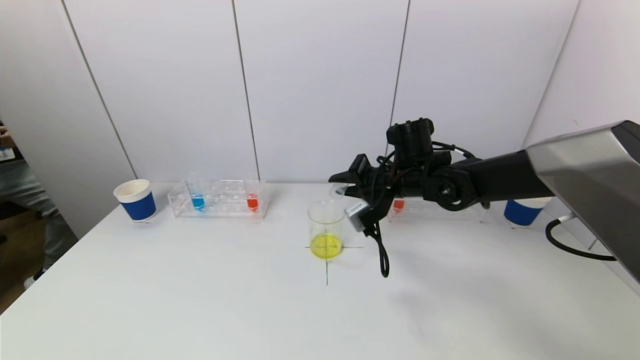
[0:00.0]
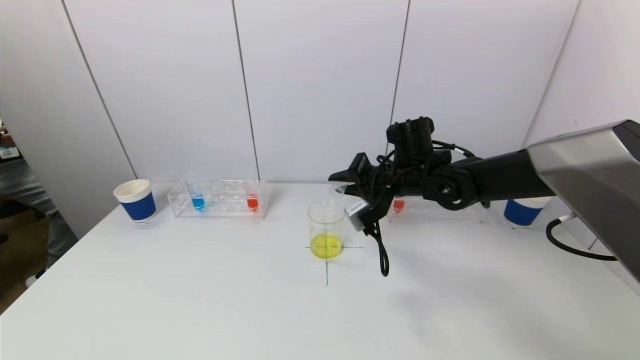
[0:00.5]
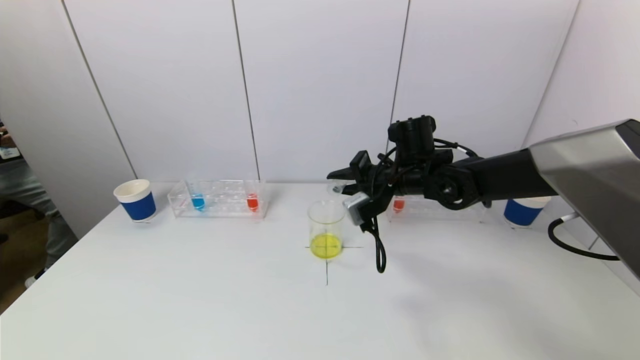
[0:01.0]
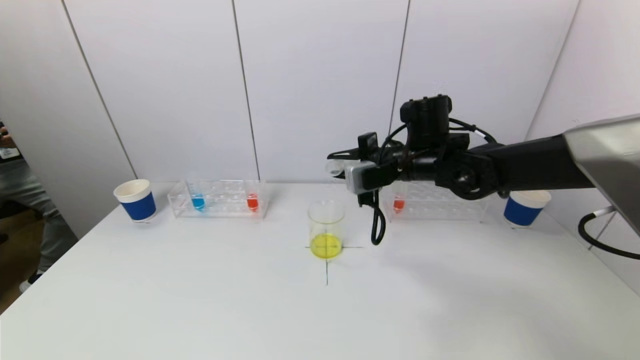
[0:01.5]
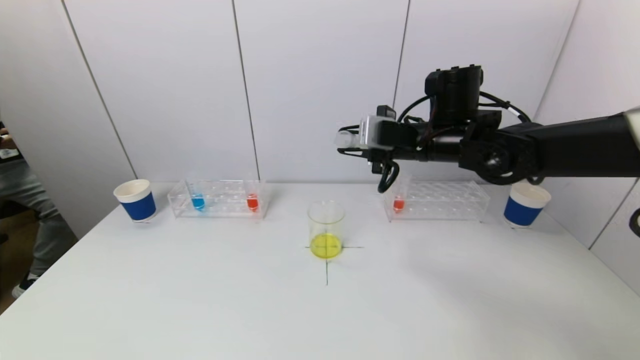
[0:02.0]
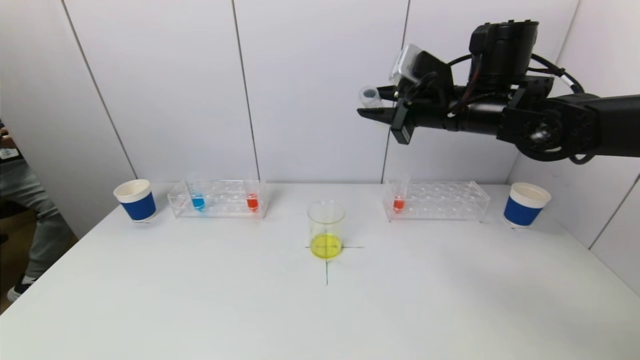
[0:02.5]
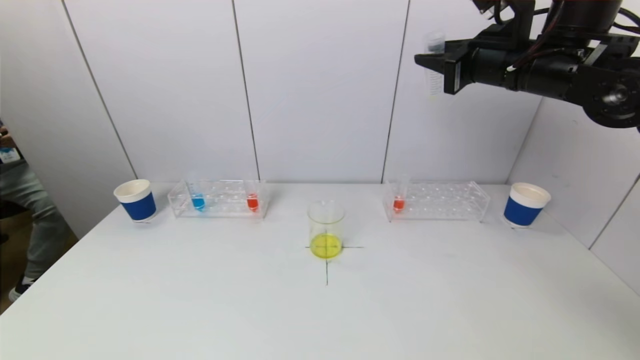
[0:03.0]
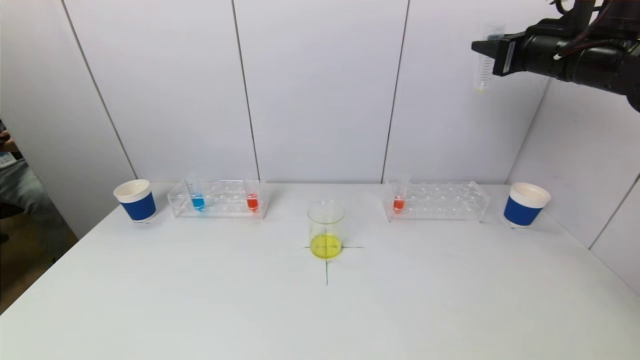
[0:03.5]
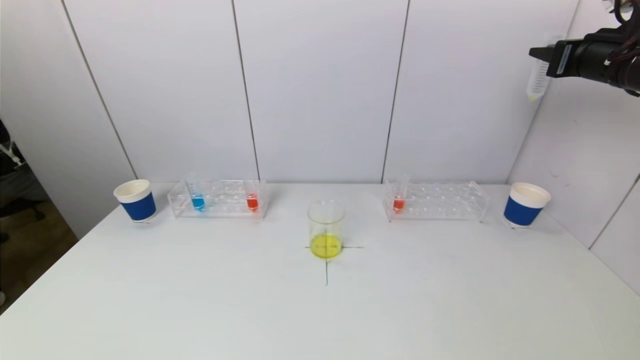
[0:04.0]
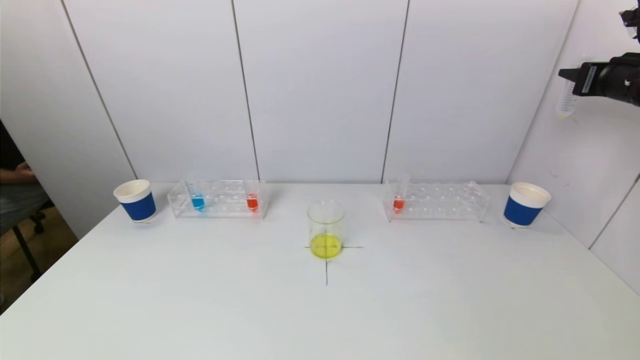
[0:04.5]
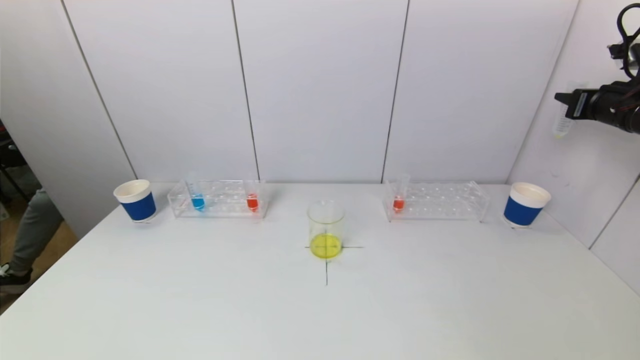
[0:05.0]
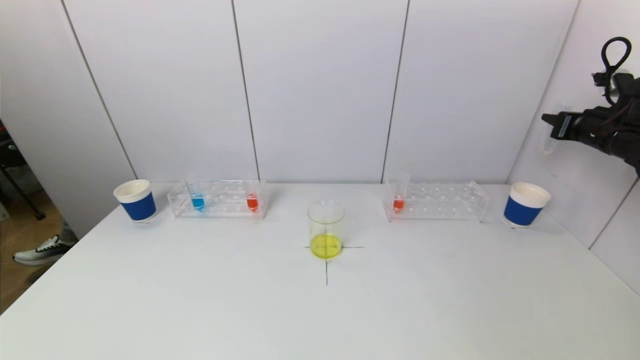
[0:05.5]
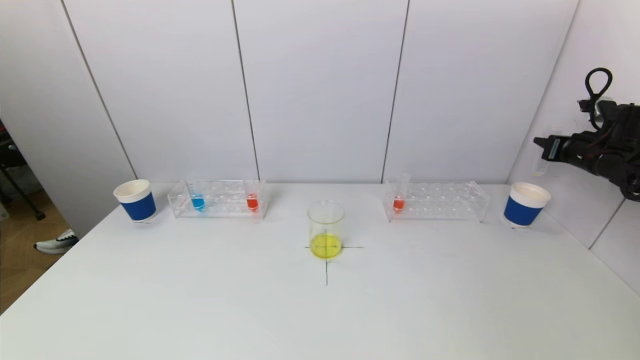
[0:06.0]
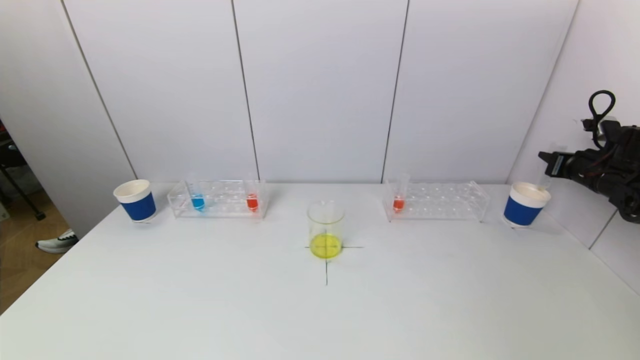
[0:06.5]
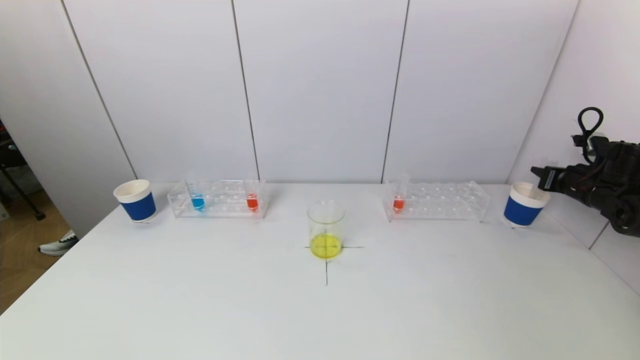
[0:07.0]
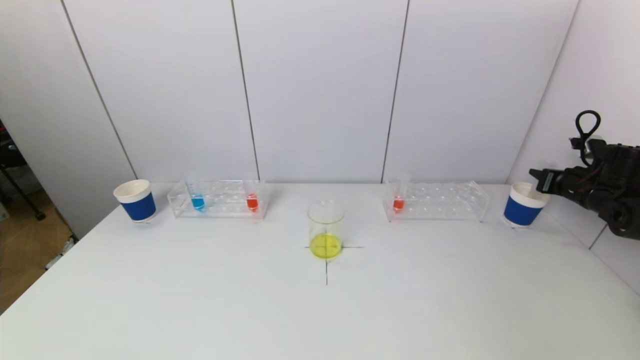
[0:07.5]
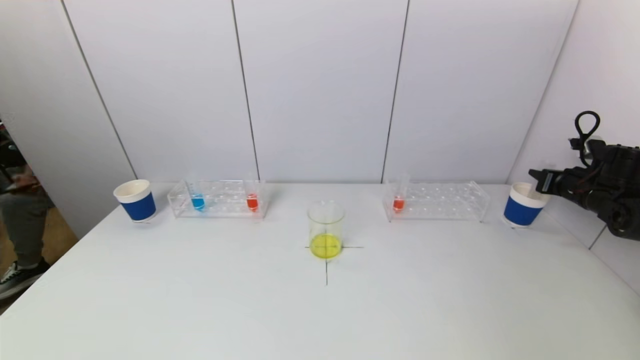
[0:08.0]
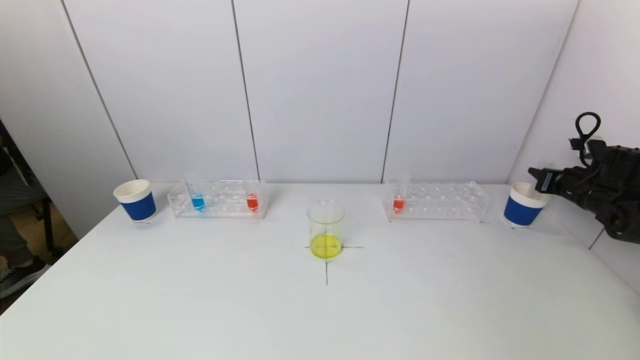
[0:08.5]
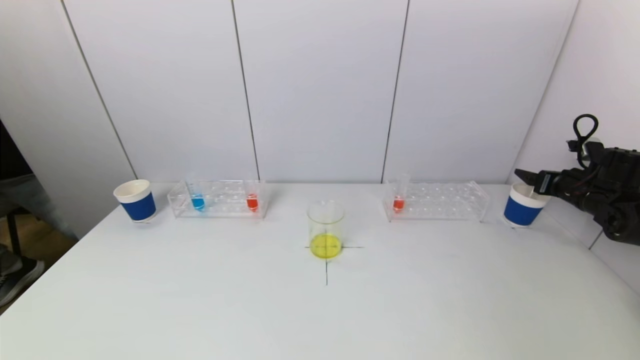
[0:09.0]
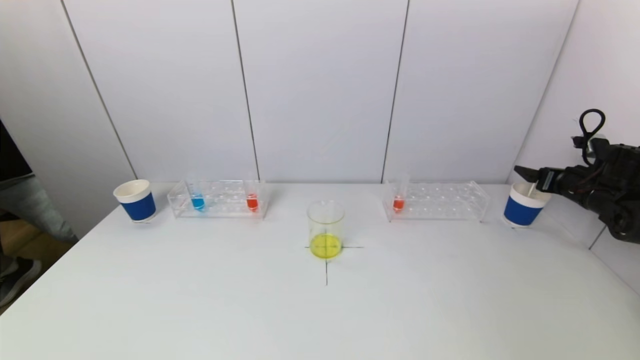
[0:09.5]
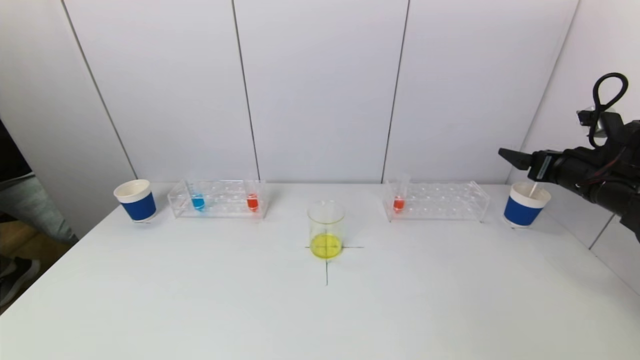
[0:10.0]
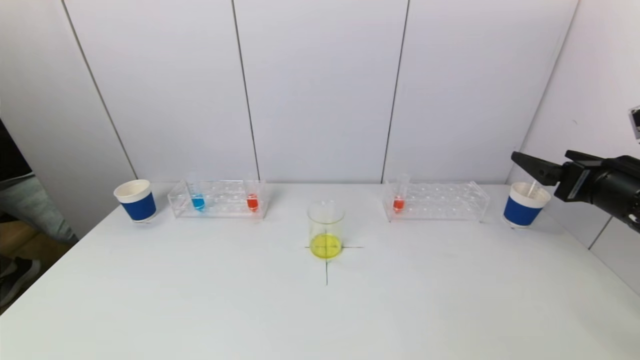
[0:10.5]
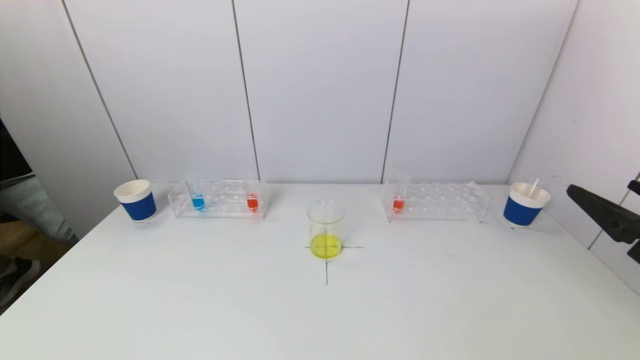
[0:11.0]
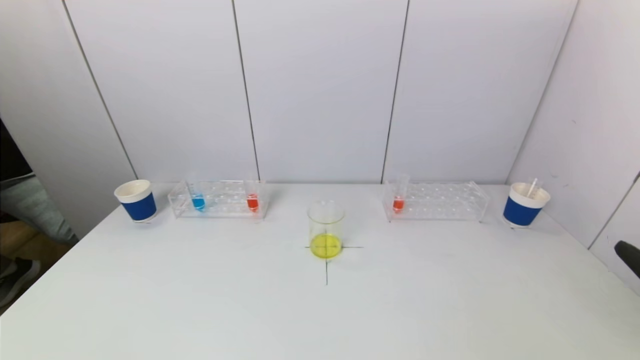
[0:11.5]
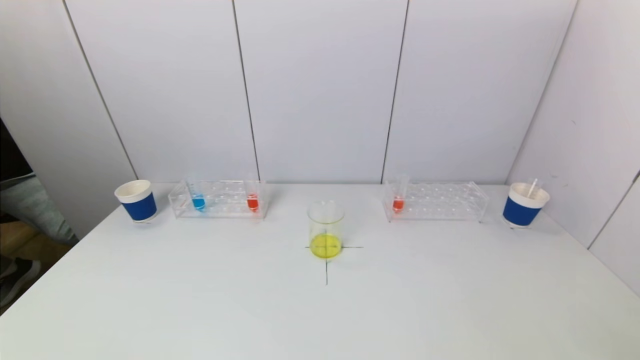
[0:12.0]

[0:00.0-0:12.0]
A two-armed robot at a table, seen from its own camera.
Task of the whole recording: pick up a test tube with pigment on left test tube rack and a test tube with pigment on right test tube rack by grippers and pour them into the beaker.
Step, 0:00.5 to 0:09.0: Place the test tube into the paper cup with the right gripper.
0:00.0 to 0:02.0: The right gripper travels upward by roughly 10 cm.
0:02.0 to 0:04.0: The right gripper travels to the right and upward by approximately 25 cm.
0:04.0 to 0:06.0: The right gripper moves downward and to the right, about 20 cm.
0:06.0 to 0:08.0: The right gripper travels downward by roughly 5 cm.
0:08.0 to 0:10.0: The right gripper moves to the left, backward and upward, some 15 cm, and opens.
0:10.0 to 0:12.0: The right gripper moves backward, approximately 35 cm.

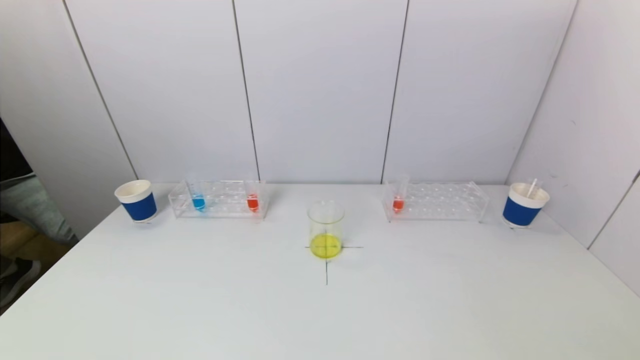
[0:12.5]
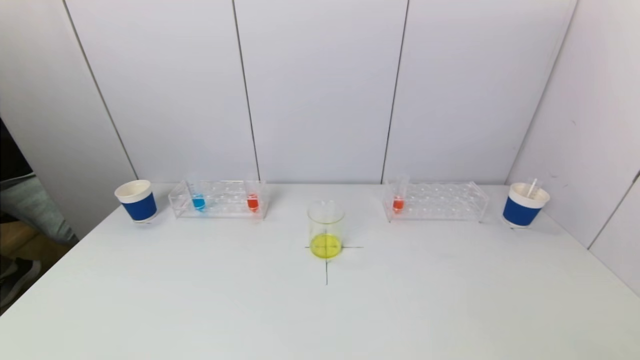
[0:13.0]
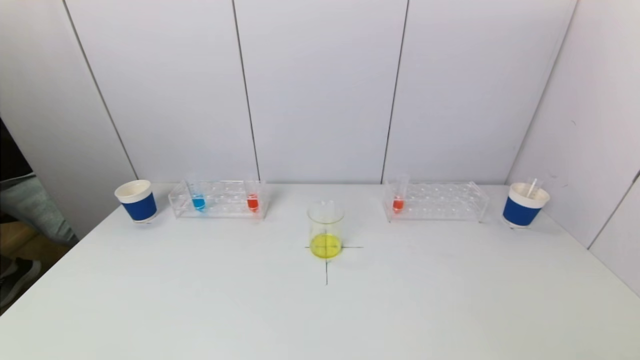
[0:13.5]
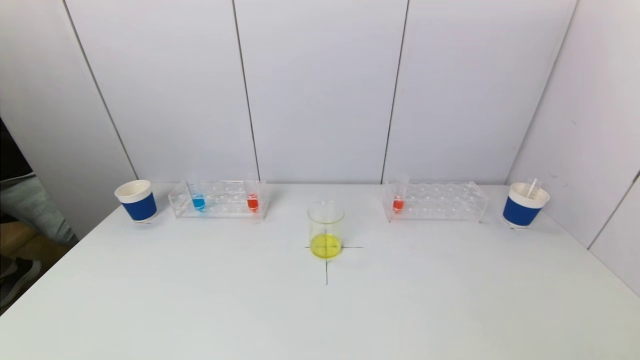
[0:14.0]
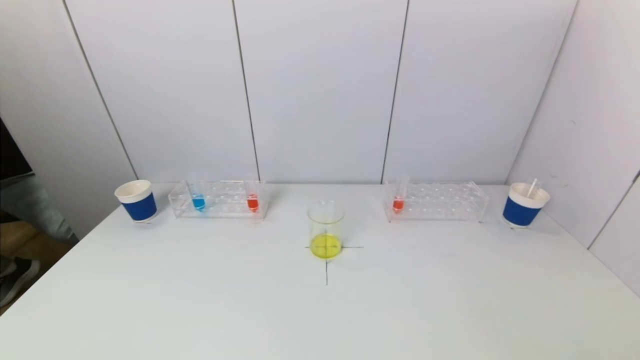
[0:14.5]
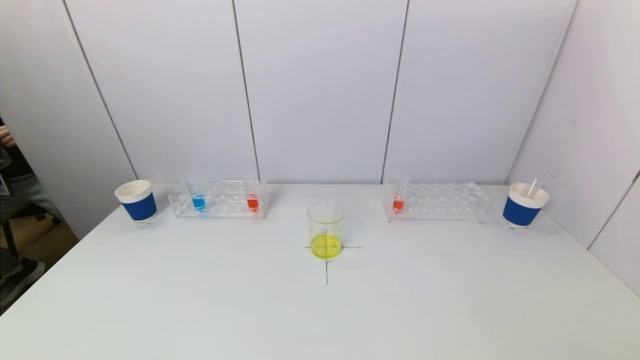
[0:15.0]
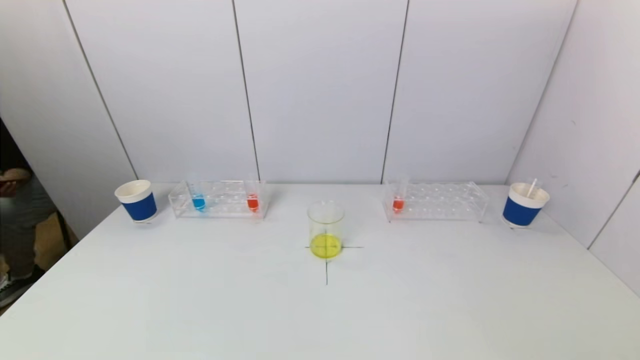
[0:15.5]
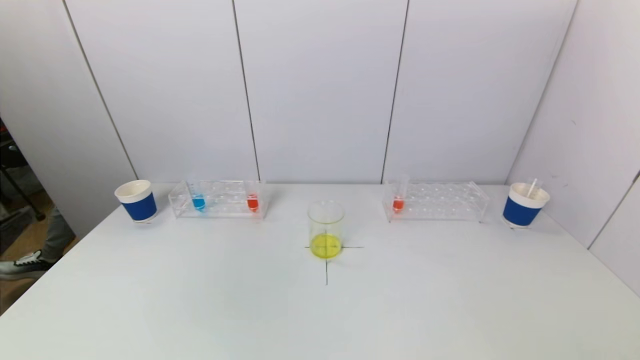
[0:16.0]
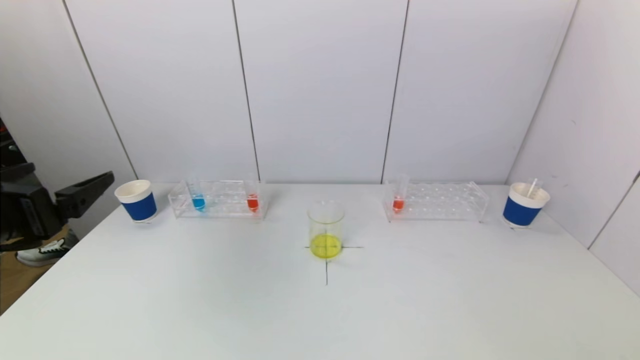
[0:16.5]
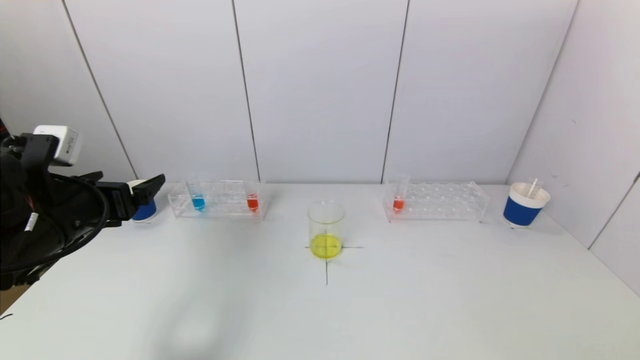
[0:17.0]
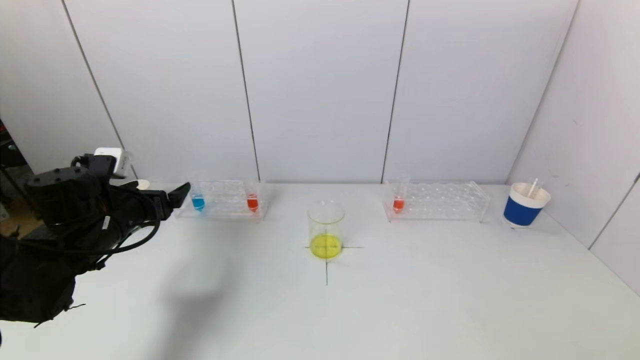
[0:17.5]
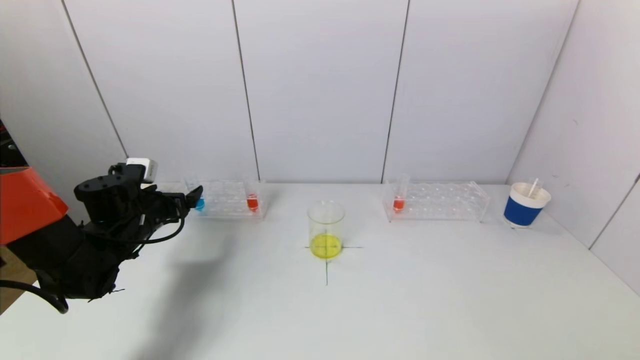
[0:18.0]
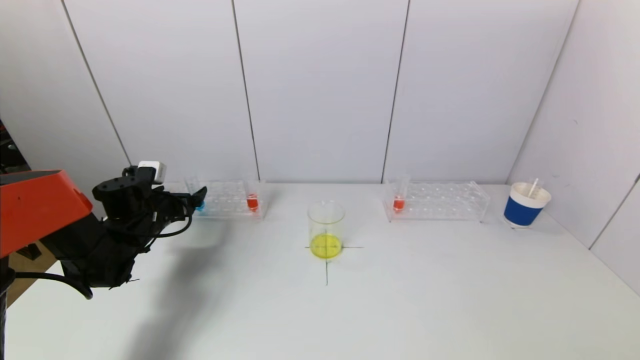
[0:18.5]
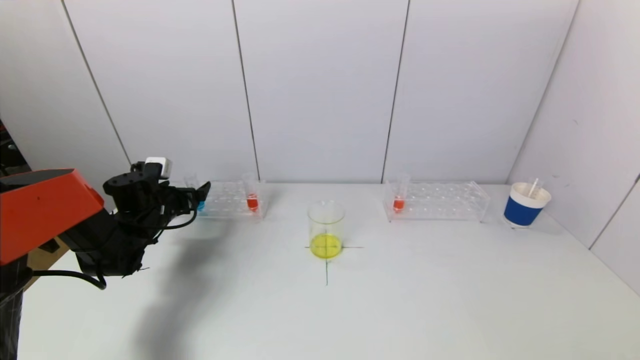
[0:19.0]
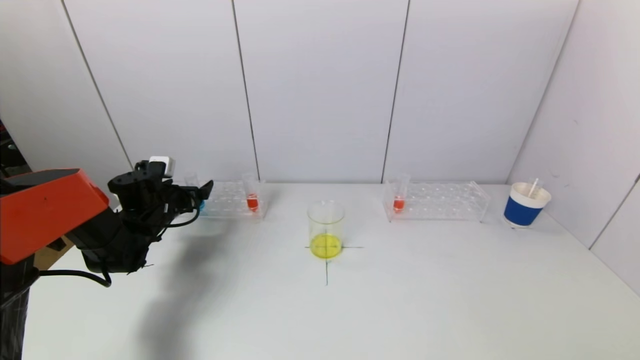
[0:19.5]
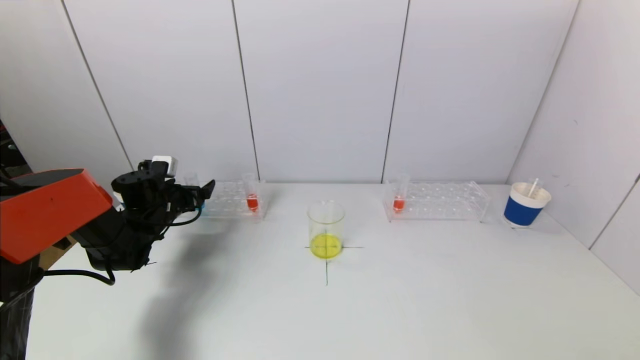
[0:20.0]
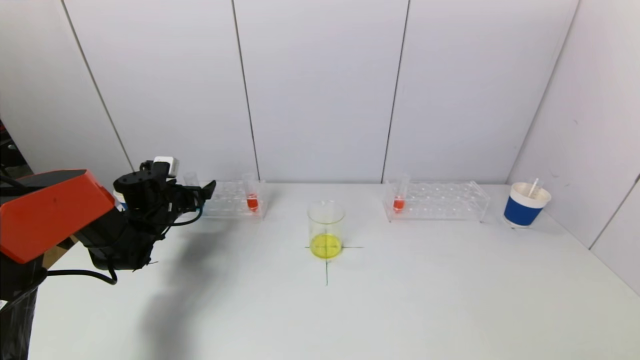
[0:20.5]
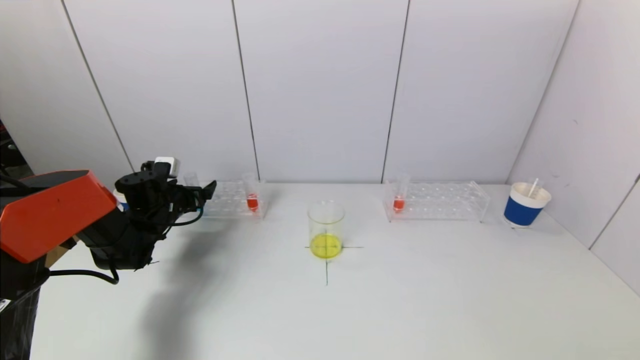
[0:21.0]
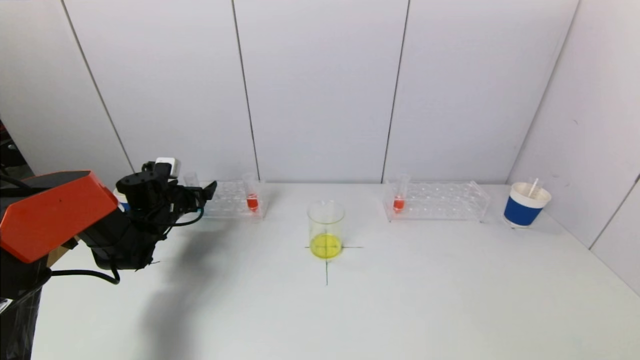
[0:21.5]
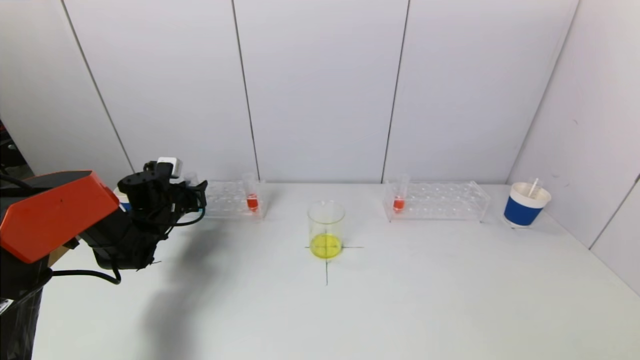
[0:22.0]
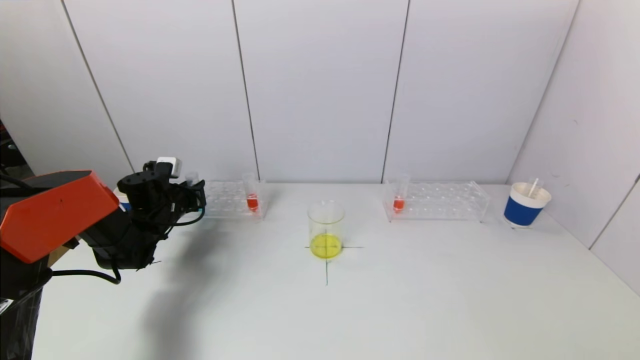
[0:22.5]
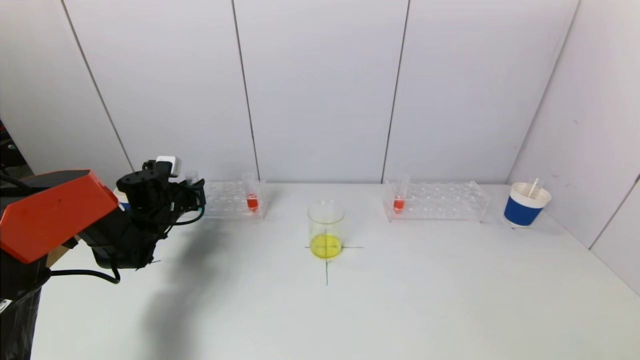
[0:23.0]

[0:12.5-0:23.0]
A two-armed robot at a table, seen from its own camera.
Task of the whole recording: pick up a test tube with pigment on left test tube rack and a test tube with pigment on right test tube rack by grippers and pour them into the beaker.
Step, 0:12.5 to 0:22.0: Grasp the blue reagent with the left gripper.
0:14.5 to 0:16.5: The left gripper moves upward and forward, about 25 cm.
0:16.5 to 0:19.0: The left gripper heads forward and downward, covering roughly 30 cm.
0:19.0 to 0:21.0: There are only small adjustments of the grippers.
0:21.0 to 0:23.0: The left gripper closes.
